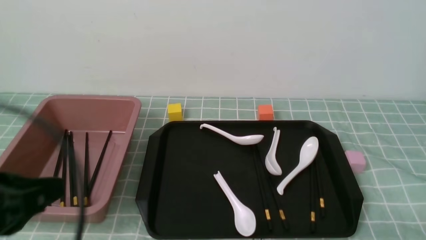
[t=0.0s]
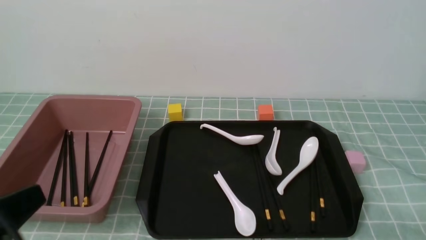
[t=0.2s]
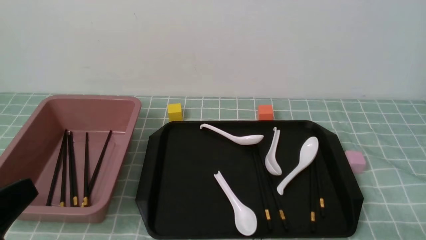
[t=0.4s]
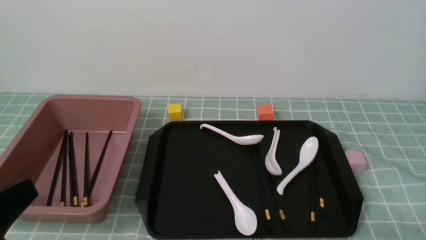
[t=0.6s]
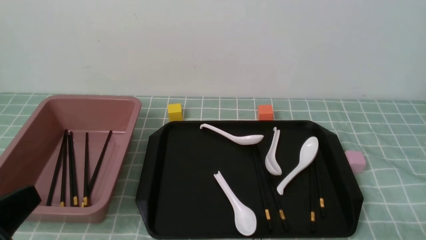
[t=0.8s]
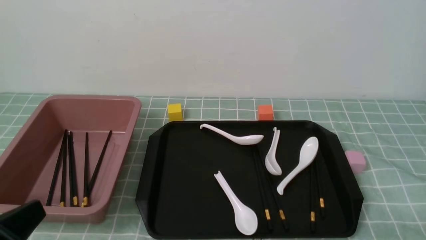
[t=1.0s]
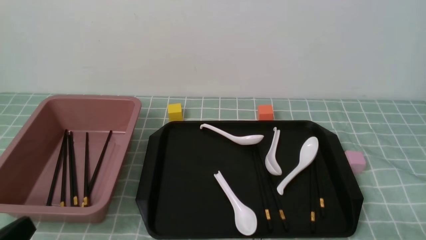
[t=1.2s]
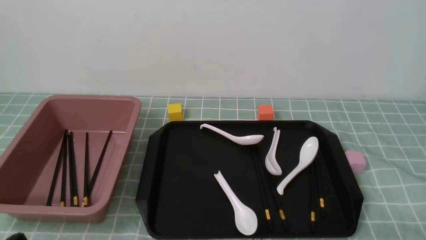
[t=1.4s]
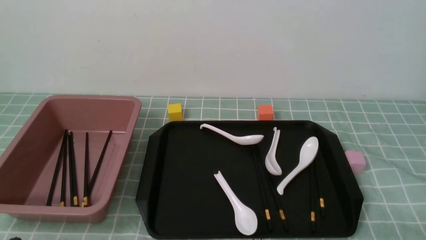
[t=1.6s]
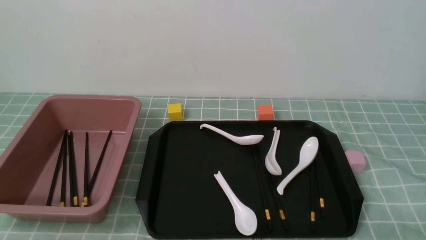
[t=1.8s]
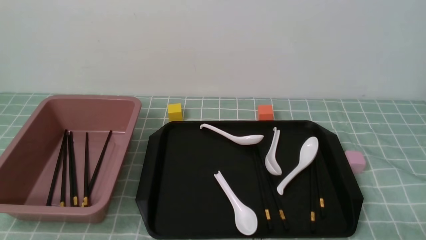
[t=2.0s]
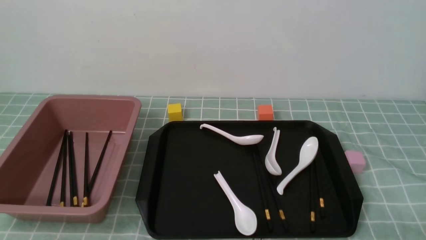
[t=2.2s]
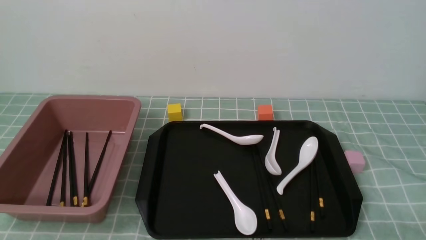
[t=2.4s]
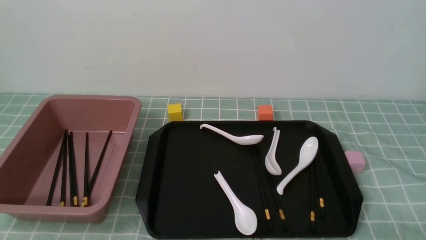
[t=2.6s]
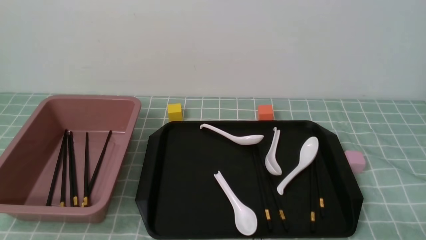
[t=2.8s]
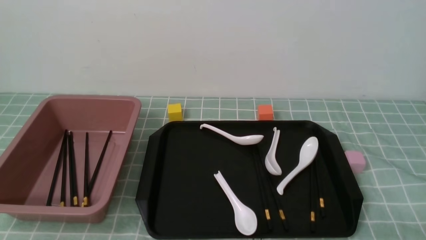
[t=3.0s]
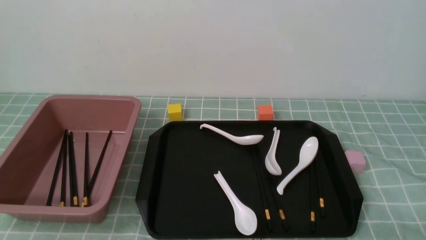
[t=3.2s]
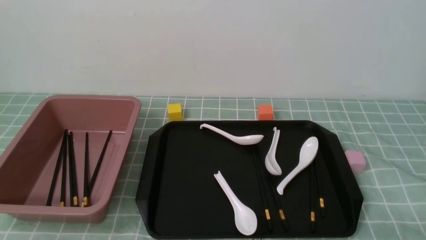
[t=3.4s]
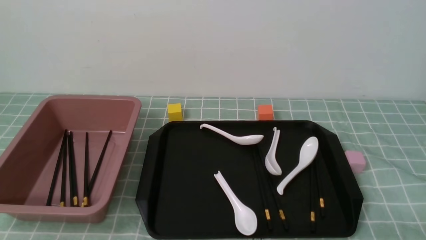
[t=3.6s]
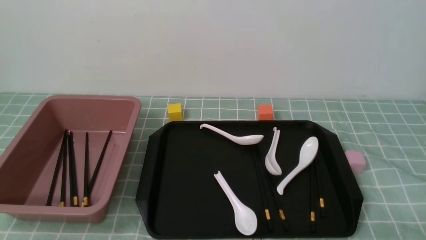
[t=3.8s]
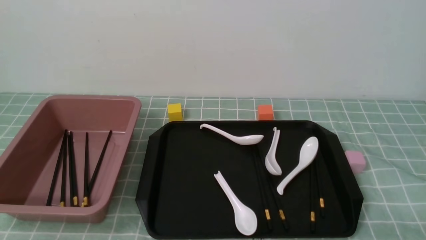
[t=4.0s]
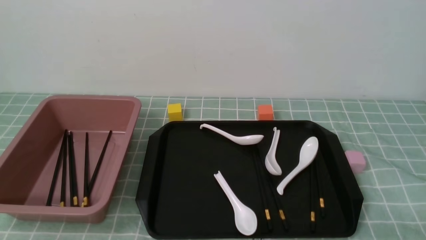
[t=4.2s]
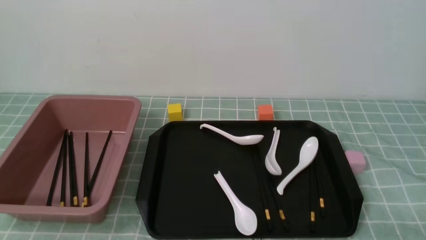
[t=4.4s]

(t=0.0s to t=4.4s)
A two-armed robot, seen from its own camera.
t=0.0s - t=1.4s: The left gripper travels downward and backward by approximately 15 cm.
t=3.0s - t=4.4s: Neither gripper changes place.
